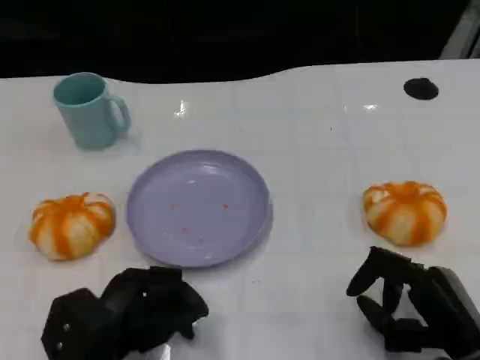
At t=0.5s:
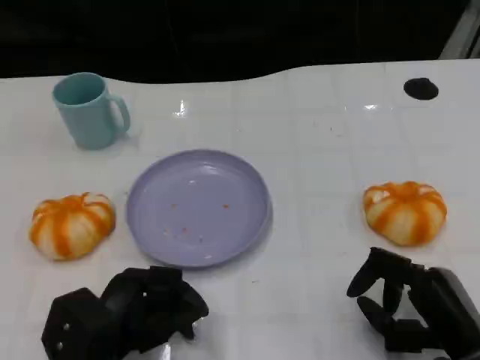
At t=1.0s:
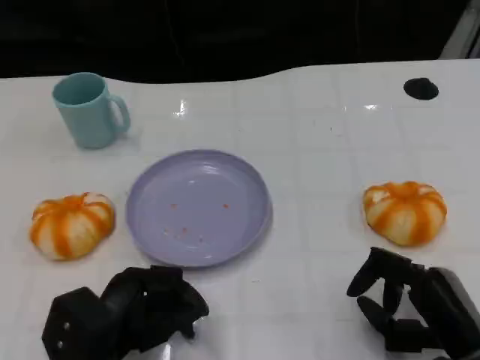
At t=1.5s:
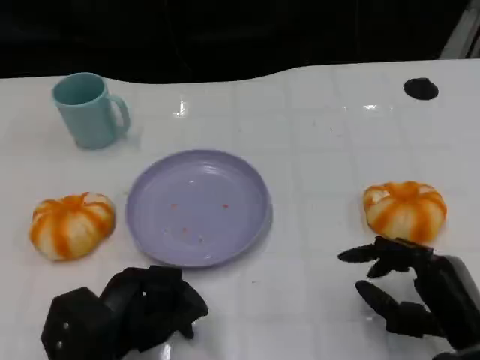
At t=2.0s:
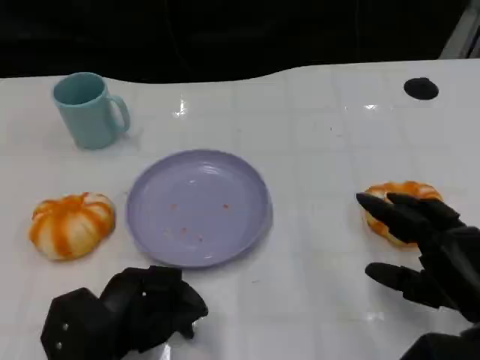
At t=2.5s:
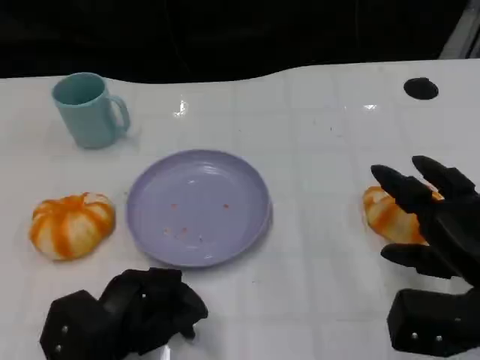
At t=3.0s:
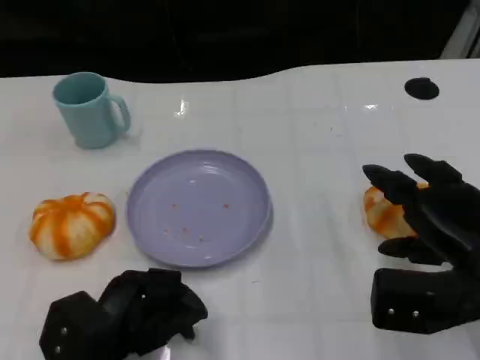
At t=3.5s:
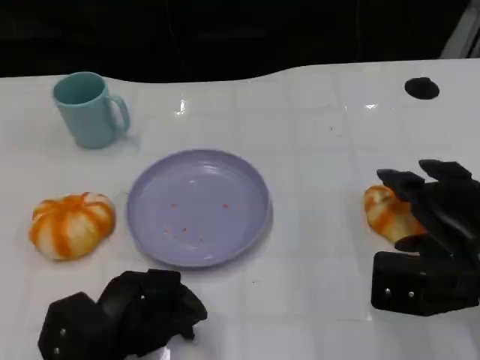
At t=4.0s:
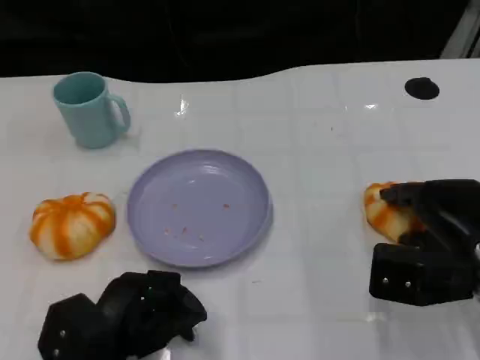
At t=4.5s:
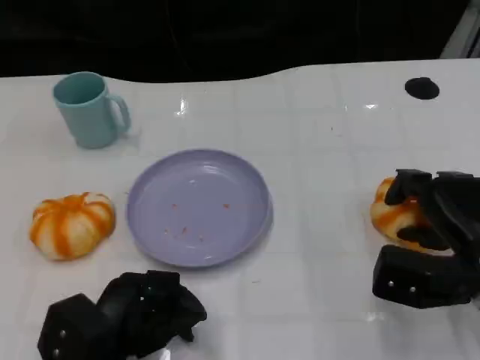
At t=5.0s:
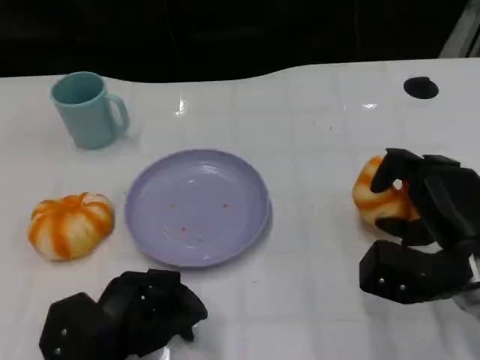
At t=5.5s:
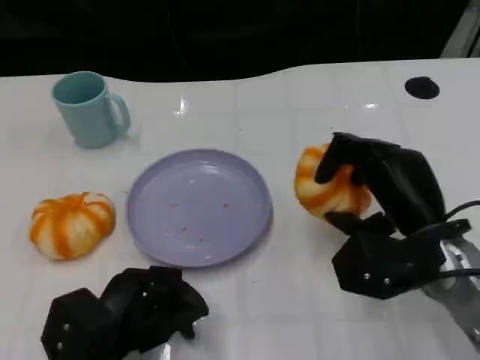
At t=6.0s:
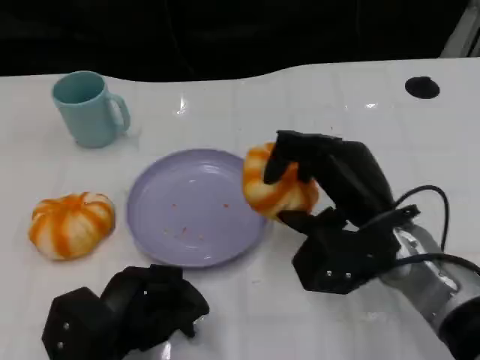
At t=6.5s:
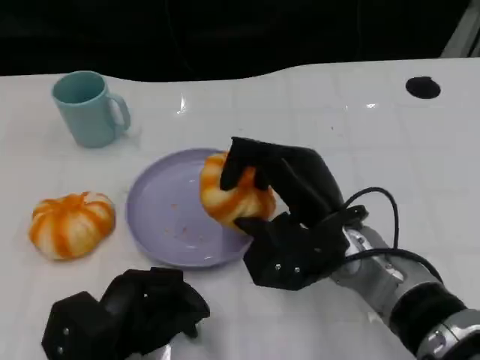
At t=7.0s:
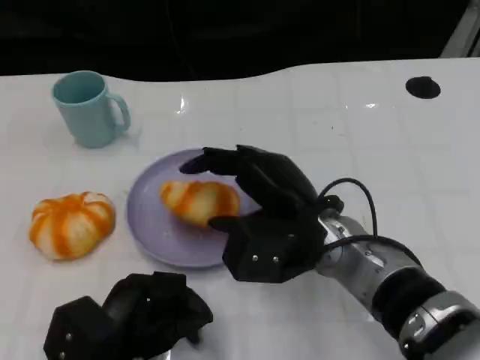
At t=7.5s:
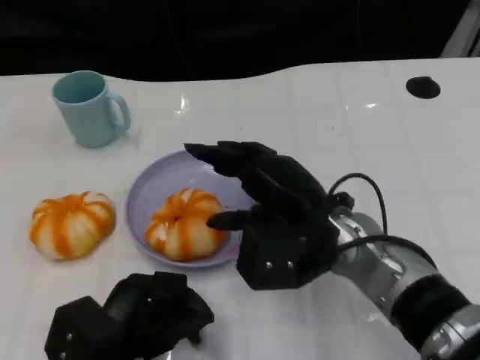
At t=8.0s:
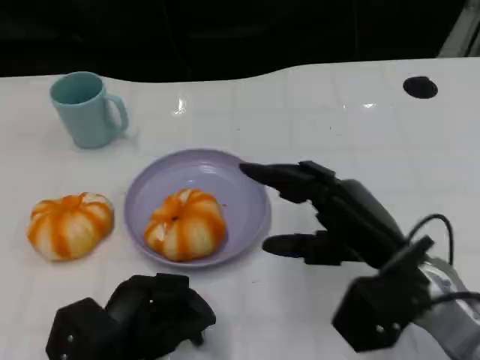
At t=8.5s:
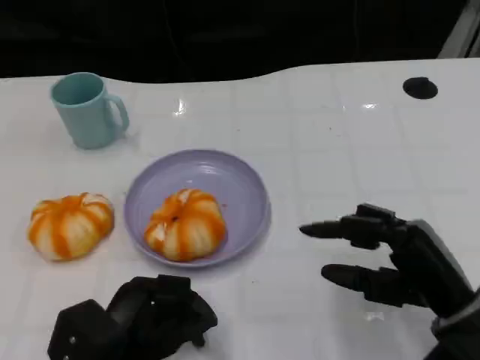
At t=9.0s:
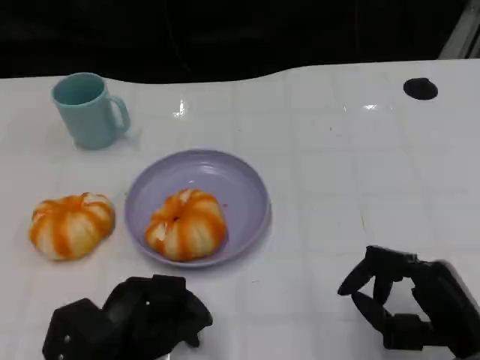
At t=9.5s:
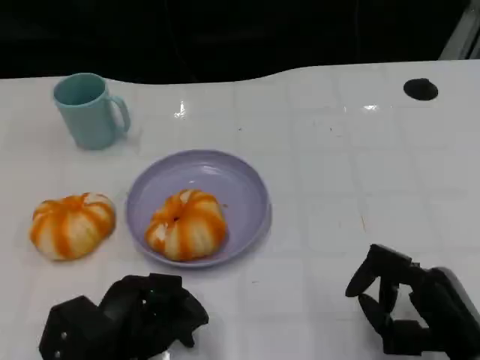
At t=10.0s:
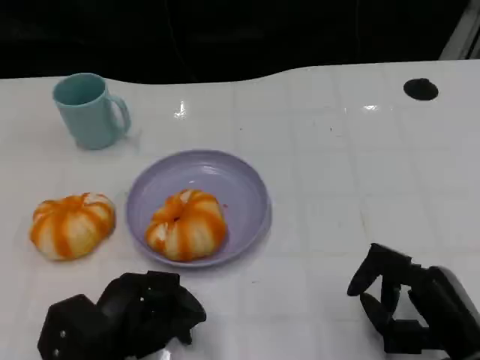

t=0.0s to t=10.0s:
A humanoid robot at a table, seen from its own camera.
Task of the whole recording: Grasp the bread from the table and place it into the plate.
t=2.0s to t=4.0s: The right hand goes about 5 cm forward.
t=4.0s to t=6.0s: The right hand is displaced to the left by some 10 cm.
t=6.0s to t=8.0s: The right hand ends up roughly 5 cm from where it was.
t=8.0s to t=10.0s: The right hand travels backward, downward and to the right by some 10 cm.

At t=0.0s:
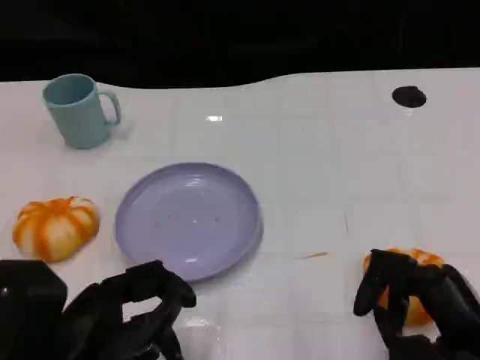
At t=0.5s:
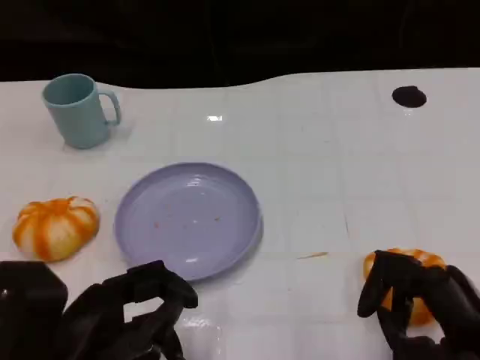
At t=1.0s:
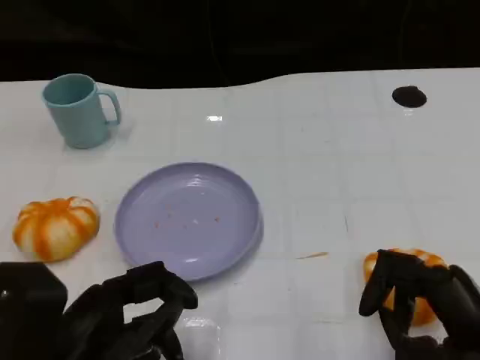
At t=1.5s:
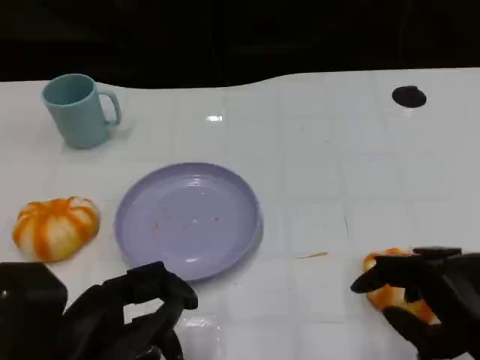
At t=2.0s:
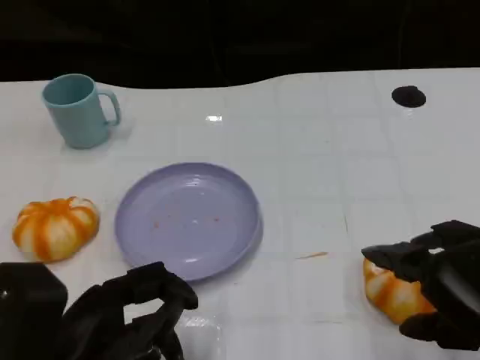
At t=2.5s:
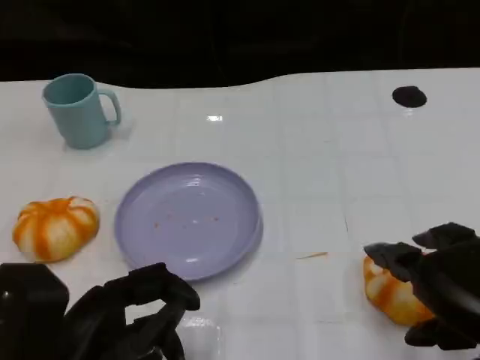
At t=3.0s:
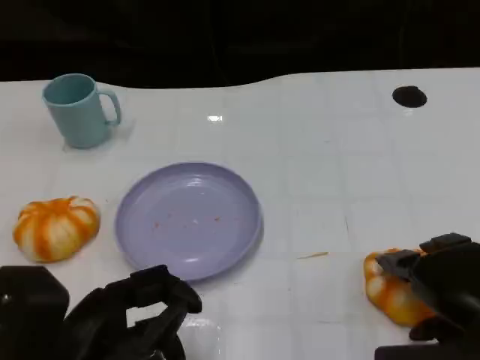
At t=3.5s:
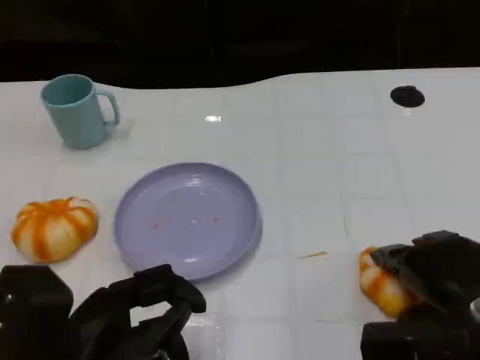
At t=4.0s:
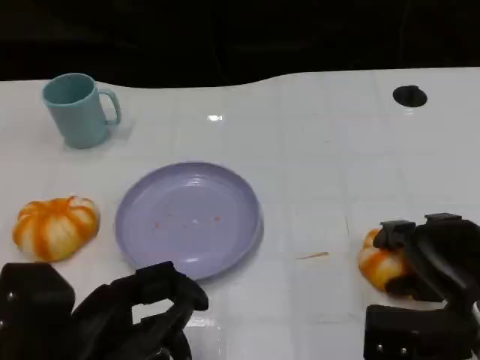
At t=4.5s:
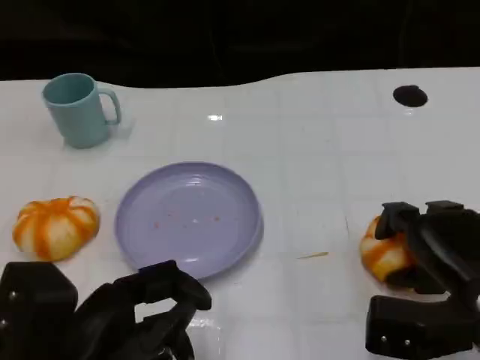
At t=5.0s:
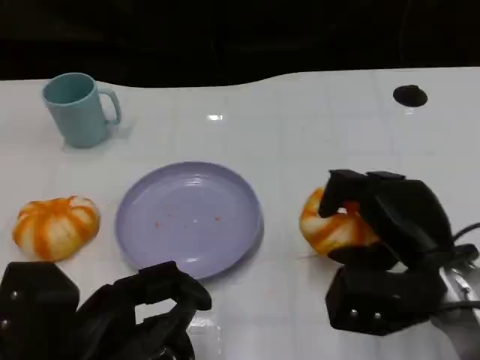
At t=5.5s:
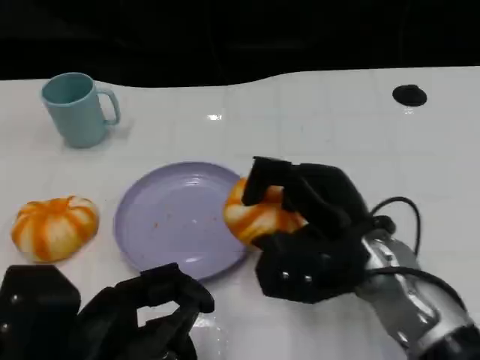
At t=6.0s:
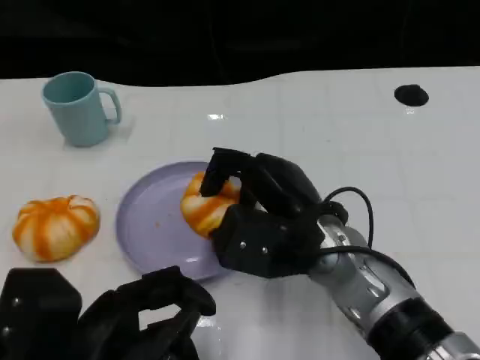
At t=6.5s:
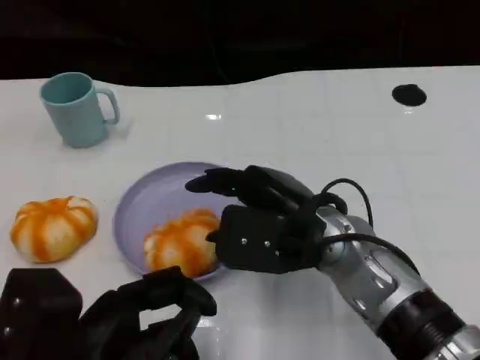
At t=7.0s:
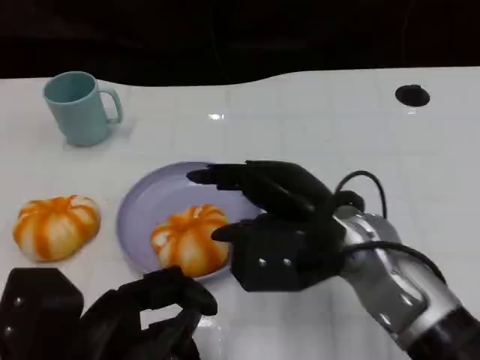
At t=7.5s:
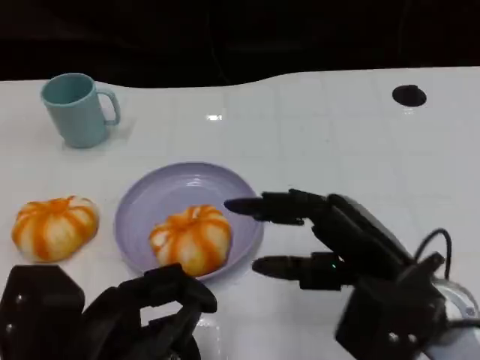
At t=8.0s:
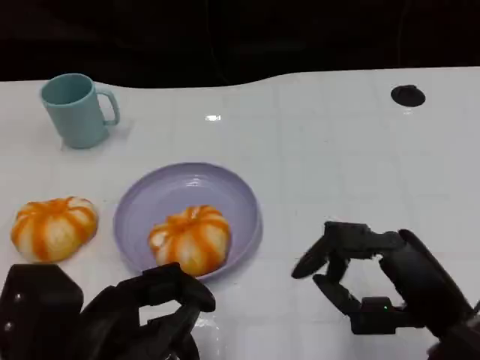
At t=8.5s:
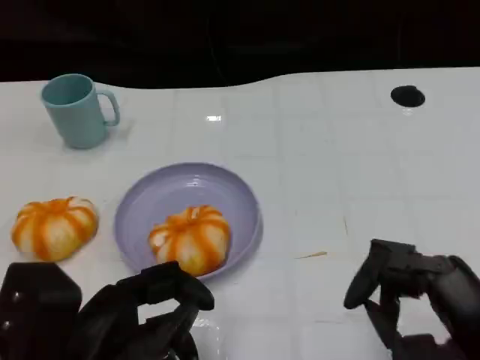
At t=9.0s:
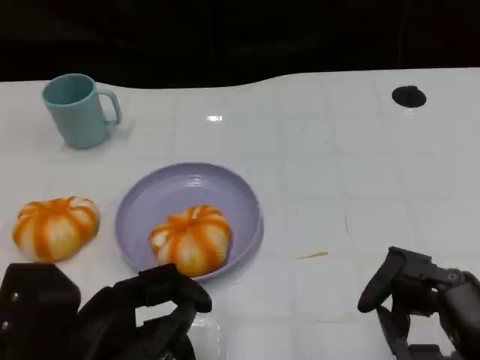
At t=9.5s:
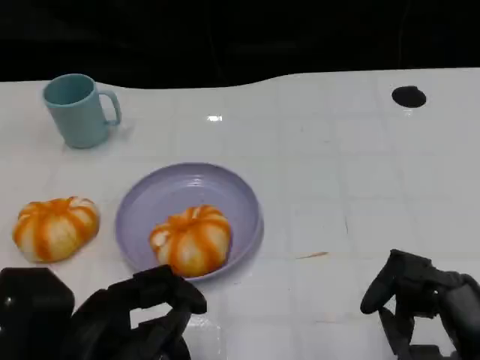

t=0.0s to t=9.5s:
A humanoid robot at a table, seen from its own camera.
Task of the whole recording: Grasp the bread from the table and place it into the plate.
t=0.0s to t=2.0s: The right hand travels upward by some 5 cm.
t=2.0s to t=4.0s: The right hand shifts approximately 10 cm downward and forward.
t=4.0s to t=5.5s: The right hand shifts about 10 cm to the left.
t=5.5s to t=7.5s: The right hand is displaced backward and to the right by roughly 10 cm.
t=7.5s to t=9.5s: The right hand is displaced backward and to the right by roughly 10 cm.

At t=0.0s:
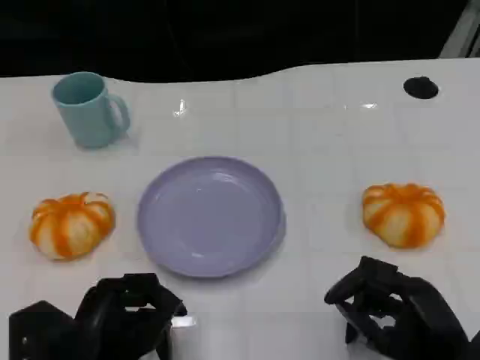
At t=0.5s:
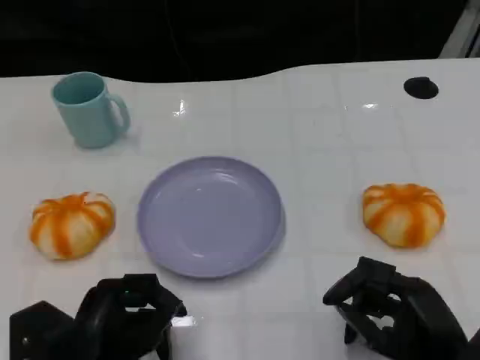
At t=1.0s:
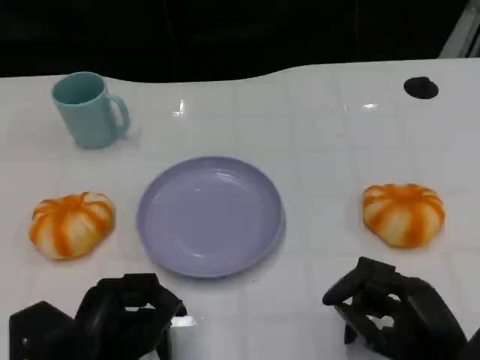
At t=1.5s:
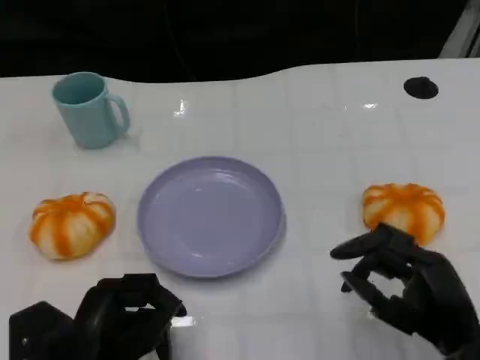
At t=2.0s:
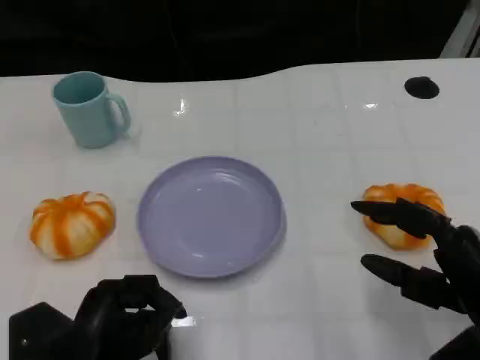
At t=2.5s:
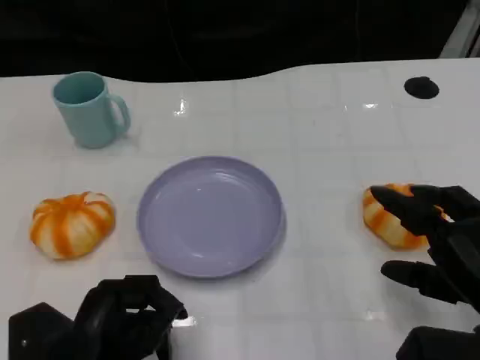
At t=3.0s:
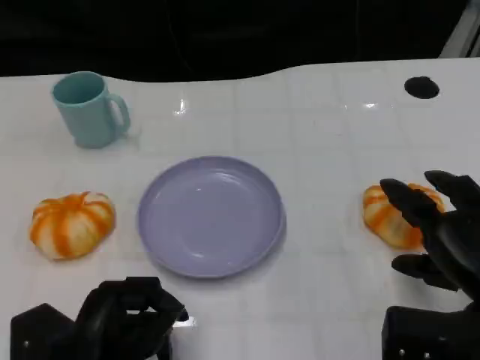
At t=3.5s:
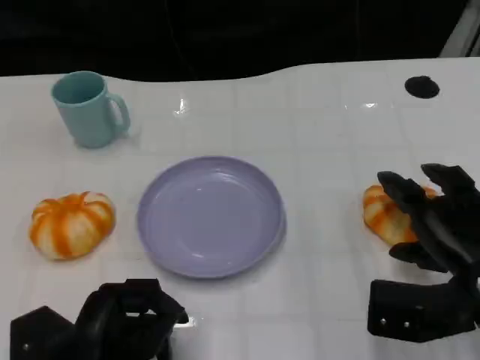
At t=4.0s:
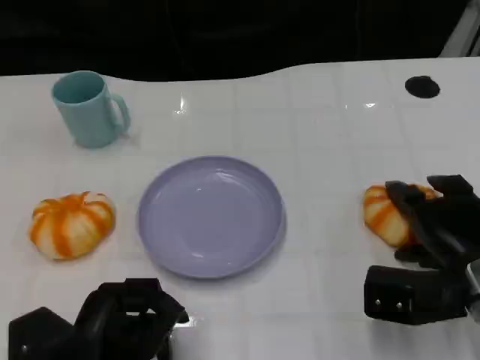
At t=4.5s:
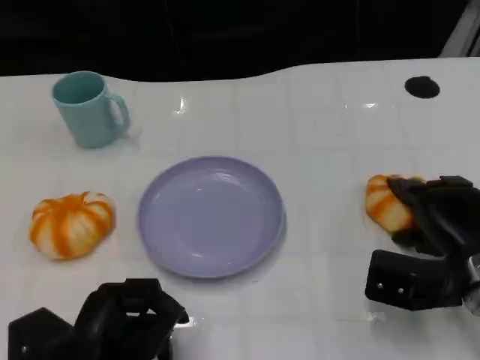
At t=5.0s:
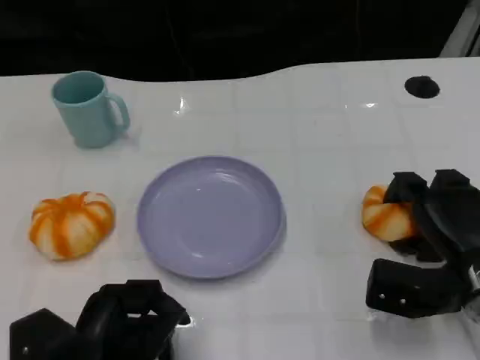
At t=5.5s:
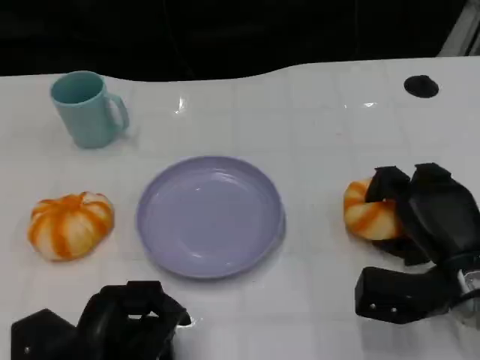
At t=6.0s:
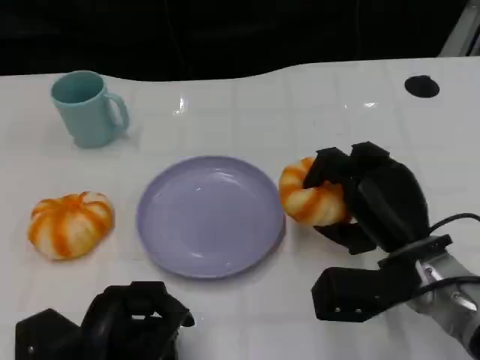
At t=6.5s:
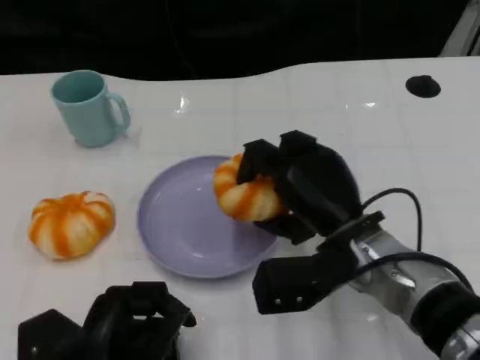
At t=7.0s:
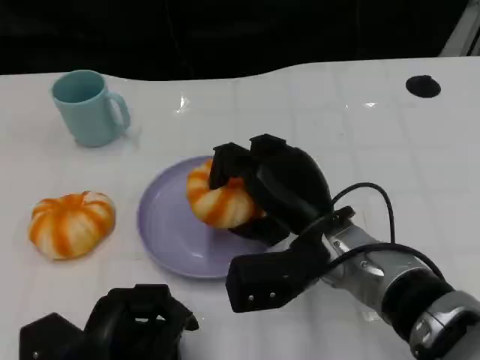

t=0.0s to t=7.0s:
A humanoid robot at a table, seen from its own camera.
Task of the whole recording: Grasp the bread from the table and place it into the plate.
t=0.0s to t=2.0s: The right hand moves roughly 5 cm.
t=3.5s to t=5.0s: The right hand changes place by approximately 5 cm.
t=5.0s to t=7.0s: The right hand travels to the left by roughly 15 cm.
